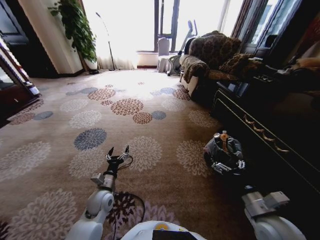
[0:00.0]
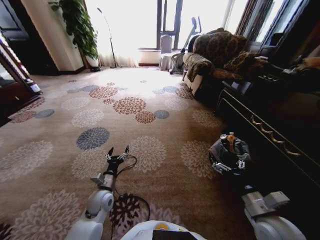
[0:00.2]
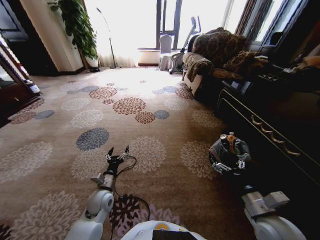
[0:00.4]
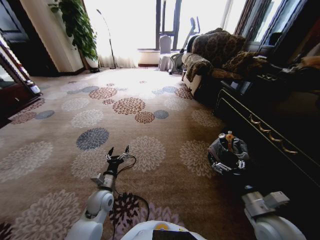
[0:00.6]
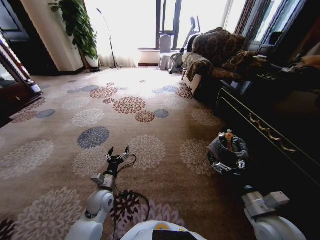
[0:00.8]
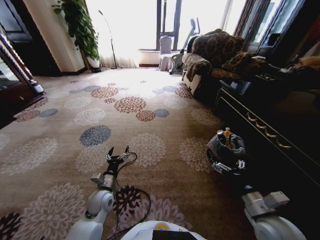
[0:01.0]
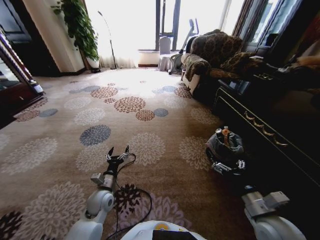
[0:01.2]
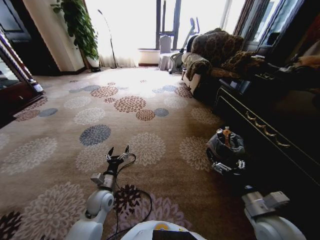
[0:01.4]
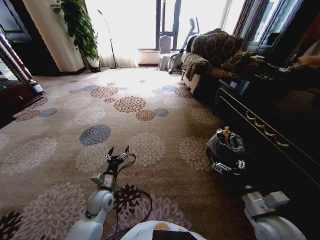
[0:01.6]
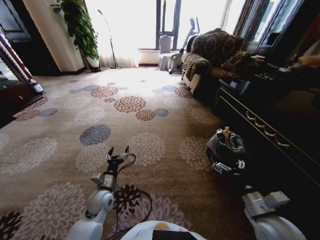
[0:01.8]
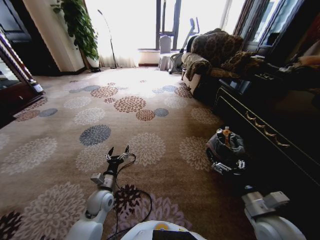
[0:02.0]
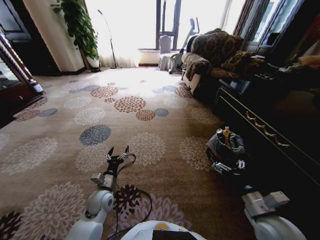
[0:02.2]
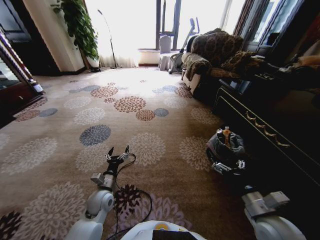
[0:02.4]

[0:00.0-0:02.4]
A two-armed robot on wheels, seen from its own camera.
Task of the whole recording: Pick up the trash from the ground and place it into the trash bin.
0:00.0 to 0:02.4: Both grippers stay put.

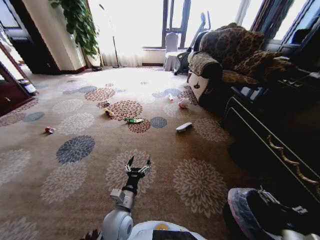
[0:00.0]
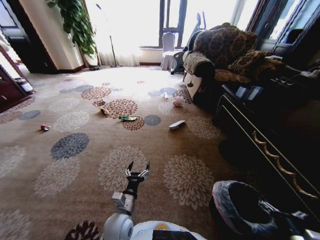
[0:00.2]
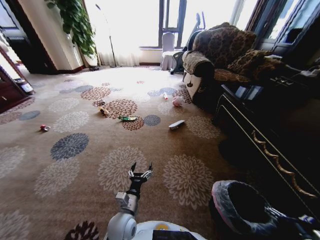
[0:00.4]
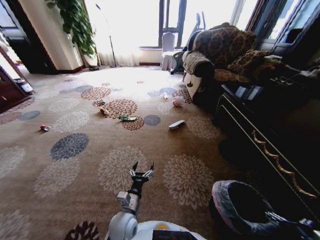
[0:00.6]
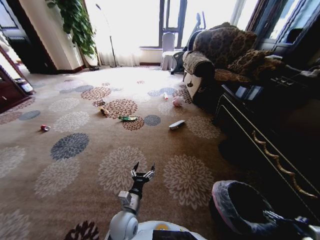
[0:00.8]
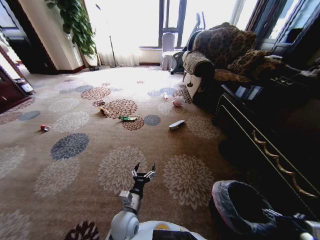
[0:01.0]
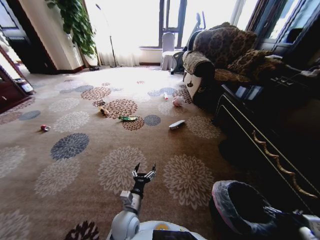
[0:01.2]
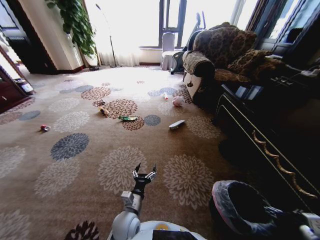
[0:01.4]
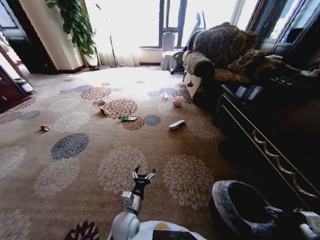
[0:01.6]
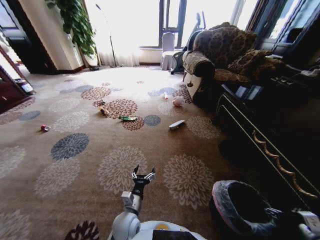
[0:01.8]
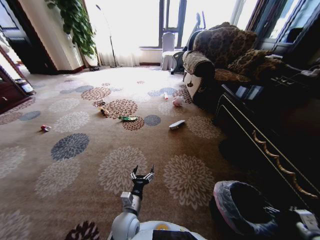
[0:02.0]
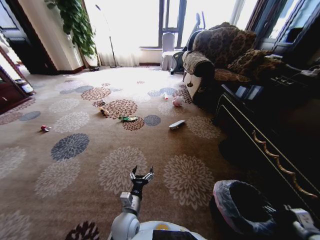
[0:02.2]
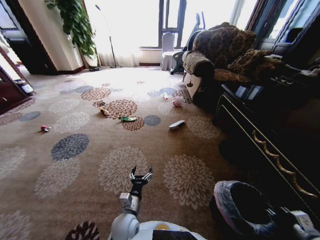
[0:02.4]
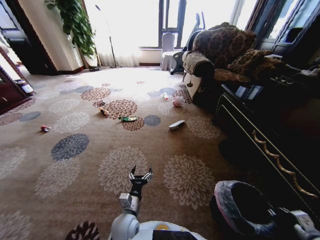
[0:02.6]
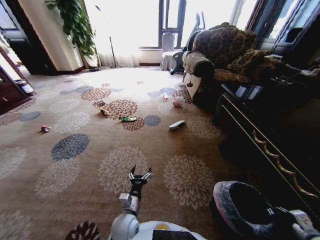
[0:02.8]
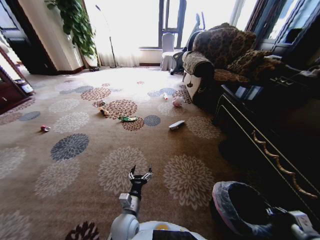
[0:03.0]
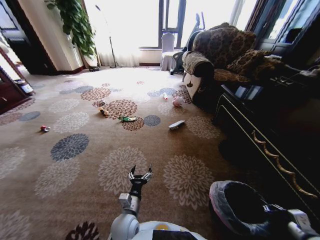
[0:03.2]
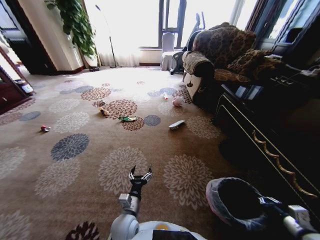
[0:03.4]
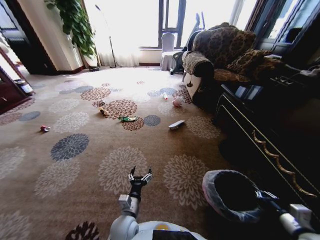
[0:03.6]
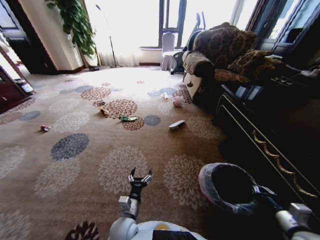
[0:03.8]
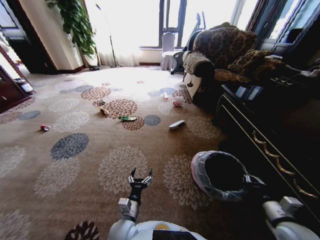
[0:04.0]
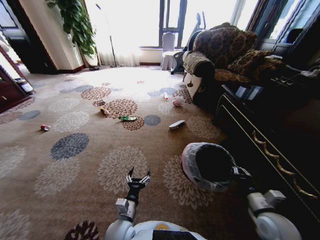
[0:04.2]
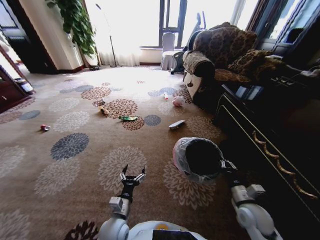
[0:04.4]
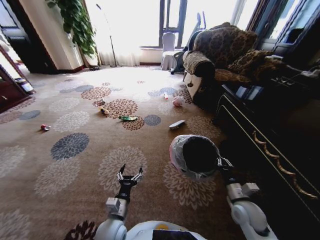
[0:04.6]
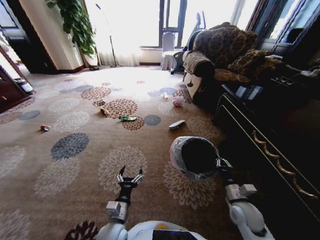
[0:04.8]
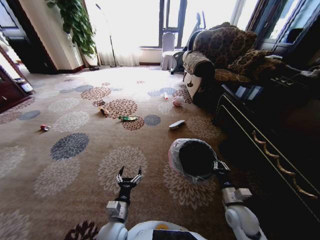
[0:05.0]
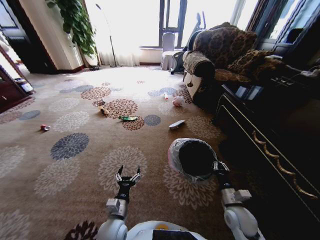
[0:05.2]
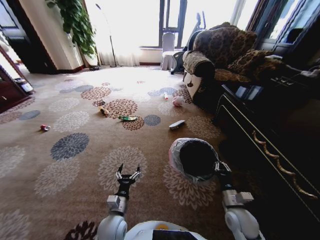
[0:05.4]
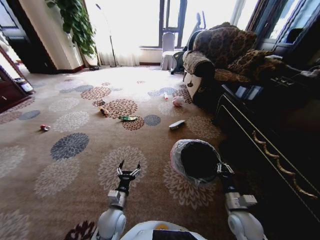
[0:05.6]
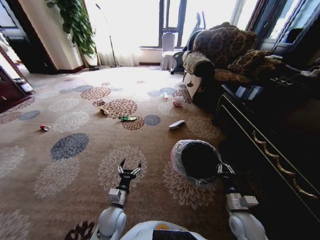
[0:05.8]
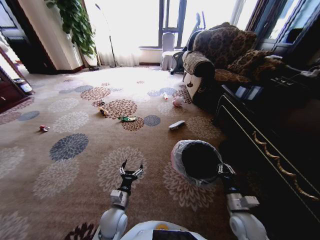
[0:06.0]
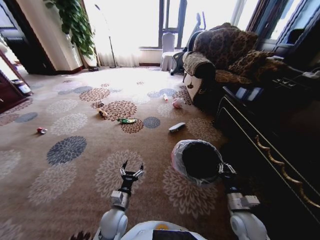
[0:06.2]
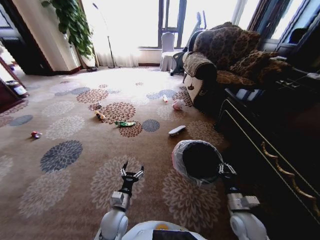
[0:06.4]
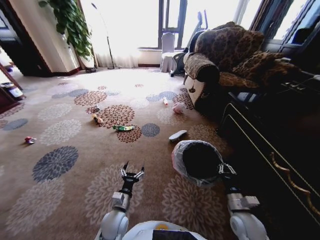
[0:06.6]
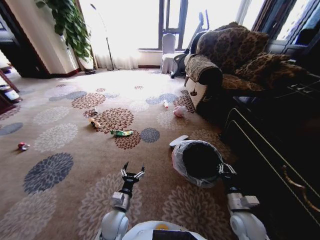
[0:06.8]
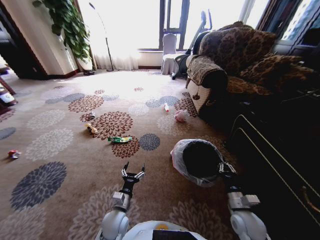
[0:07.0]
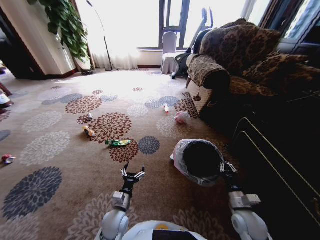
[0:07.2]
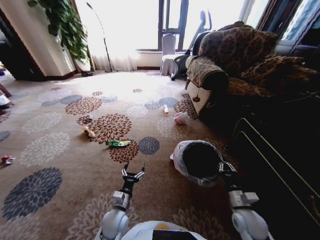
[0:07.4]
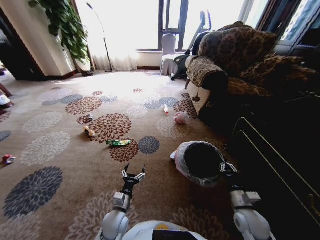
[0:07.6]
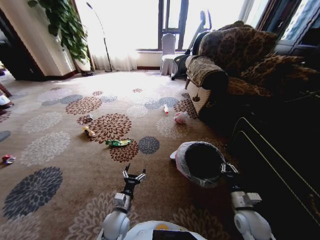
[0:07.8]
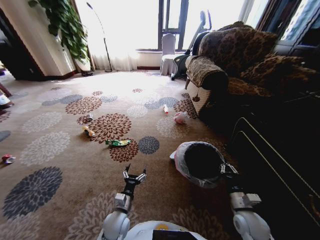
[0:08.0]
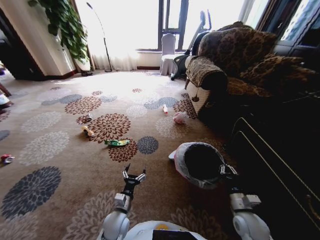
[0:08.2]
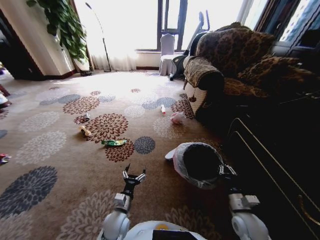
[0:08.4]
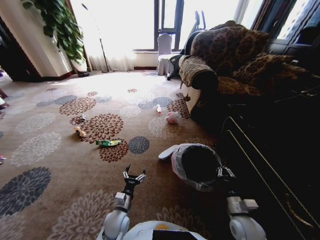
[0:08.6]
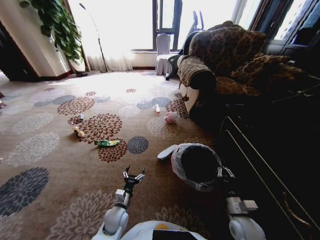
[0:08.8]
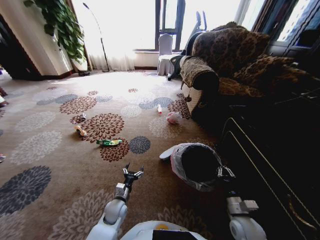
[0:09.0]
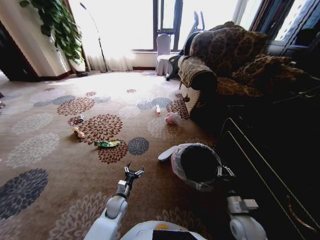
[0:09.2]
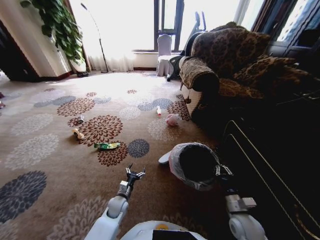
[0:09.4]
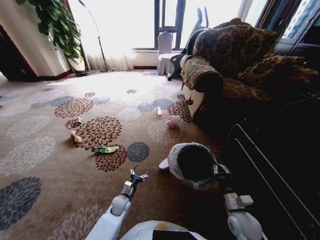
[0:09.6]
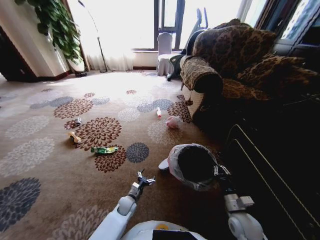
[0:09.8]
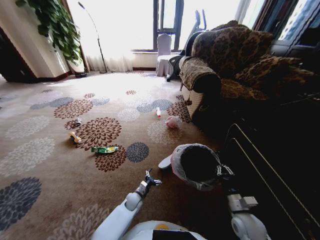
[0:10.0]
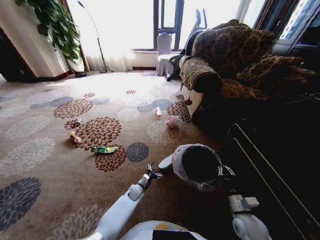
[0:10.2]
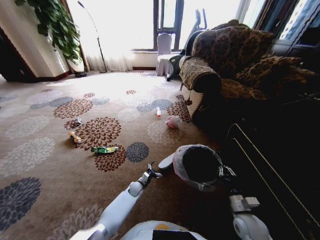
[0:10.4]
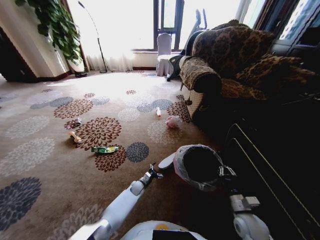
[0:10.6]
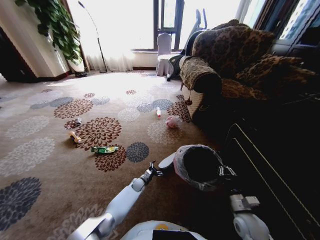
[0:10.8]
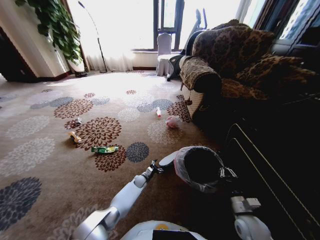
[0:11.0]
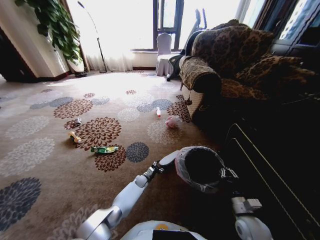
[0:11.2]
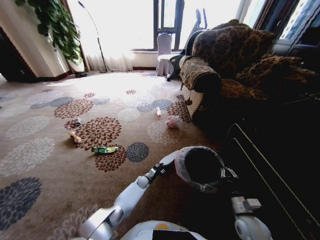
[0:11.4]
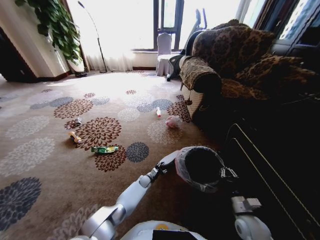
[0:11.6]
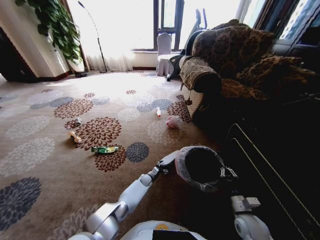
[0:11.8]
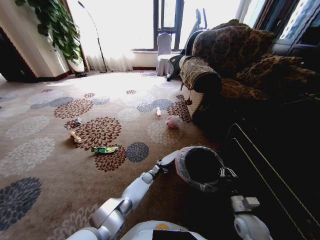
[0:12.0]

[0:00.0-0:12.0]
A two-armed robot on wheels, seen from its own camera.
Task of the whole recording: Pick up the trash from the ground and place it into the trash bin.
0:01.6 to 0:03.0: The right gripper closes up.
0:03.0 to 0:04.4: The right gripper travels to the left and forward by approximately 20 cm.
0:04.4 to 0:06.0: The grippers move only a little.
0:07.6 to 0:09.0: The left gripper is displaced forward by approximately 5 cm.
0:09.0 to 0:10.4: The left gripper is displaced forward, downward and to the right by about 15 cm.
0:10.4 to 0:12.0: The left gripper heads forward and to the right, covering some 10 cm, and closes and opens again.

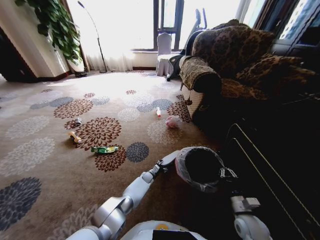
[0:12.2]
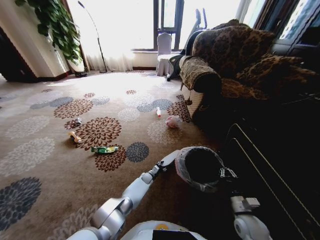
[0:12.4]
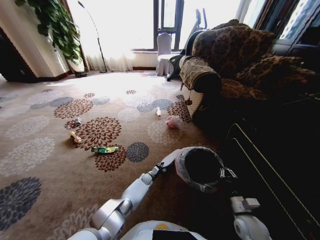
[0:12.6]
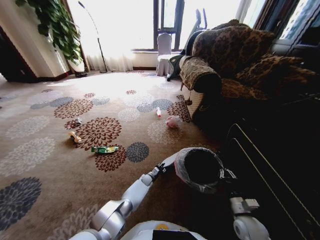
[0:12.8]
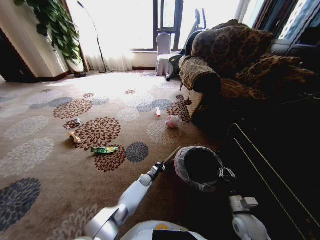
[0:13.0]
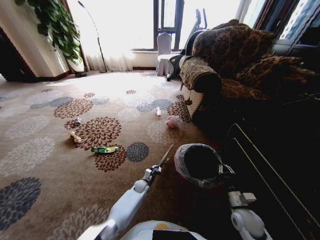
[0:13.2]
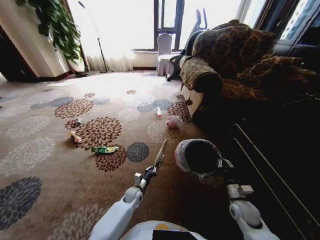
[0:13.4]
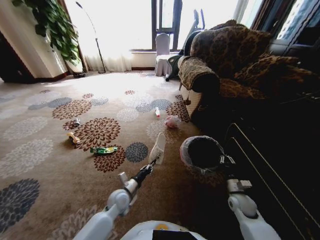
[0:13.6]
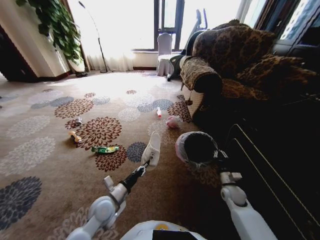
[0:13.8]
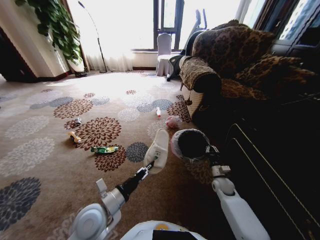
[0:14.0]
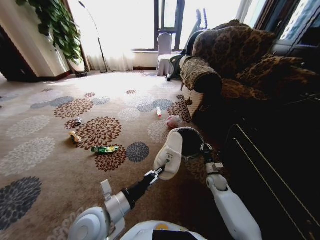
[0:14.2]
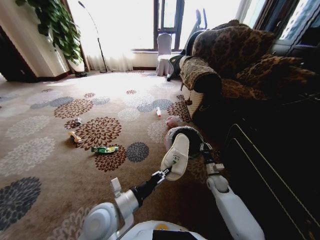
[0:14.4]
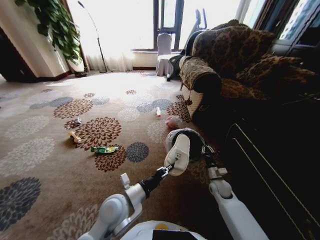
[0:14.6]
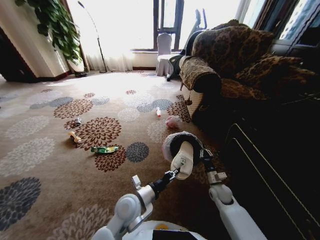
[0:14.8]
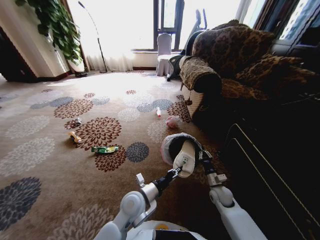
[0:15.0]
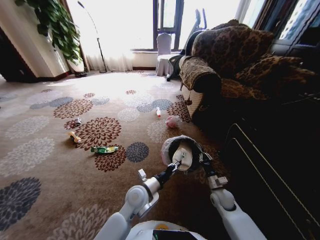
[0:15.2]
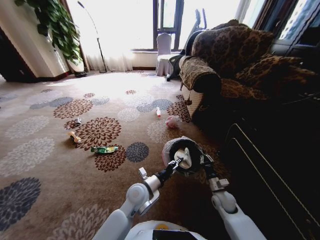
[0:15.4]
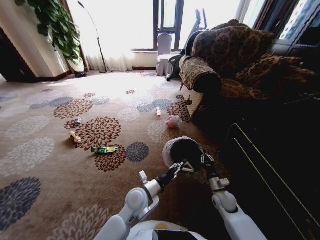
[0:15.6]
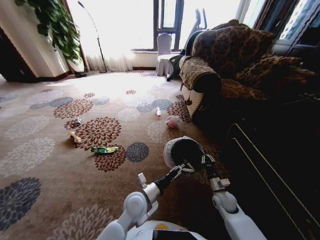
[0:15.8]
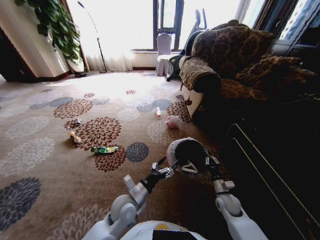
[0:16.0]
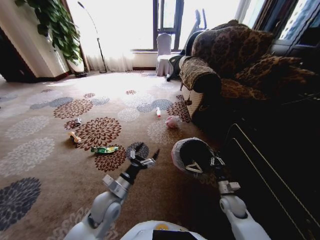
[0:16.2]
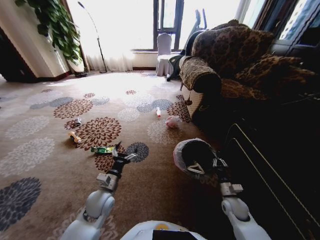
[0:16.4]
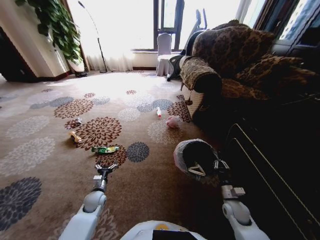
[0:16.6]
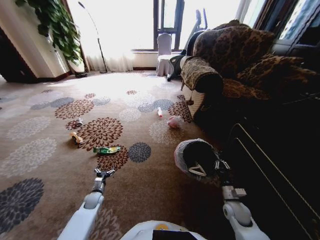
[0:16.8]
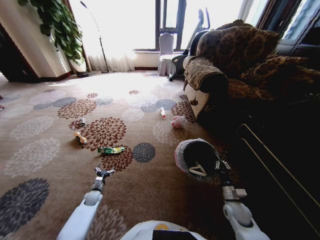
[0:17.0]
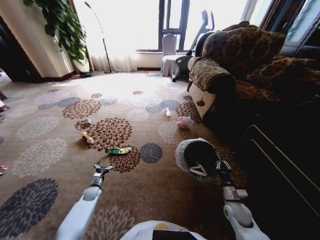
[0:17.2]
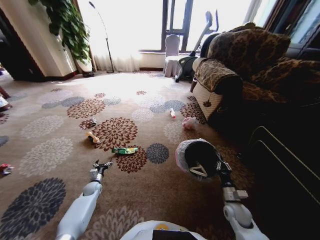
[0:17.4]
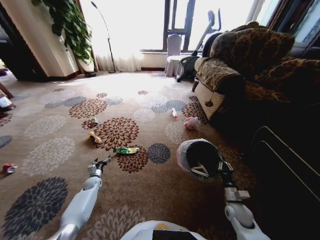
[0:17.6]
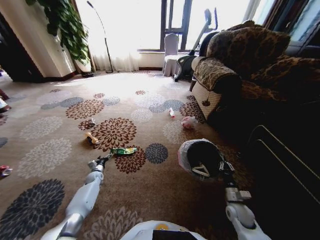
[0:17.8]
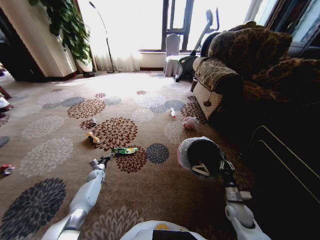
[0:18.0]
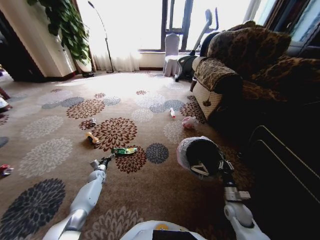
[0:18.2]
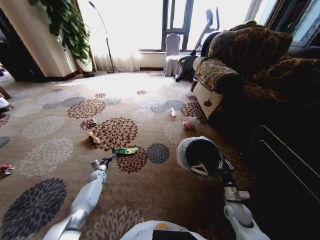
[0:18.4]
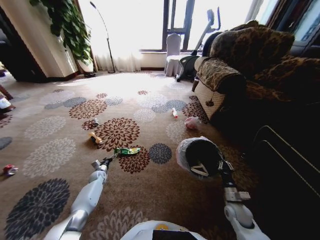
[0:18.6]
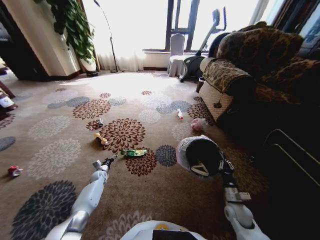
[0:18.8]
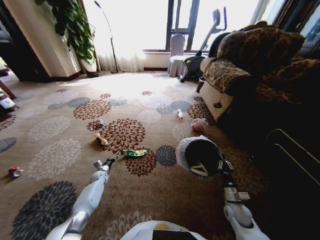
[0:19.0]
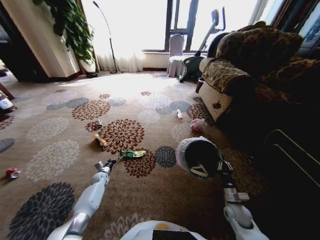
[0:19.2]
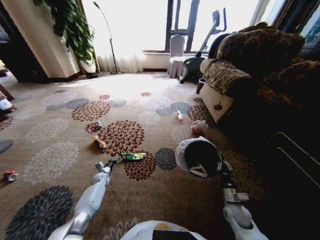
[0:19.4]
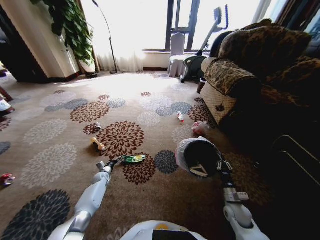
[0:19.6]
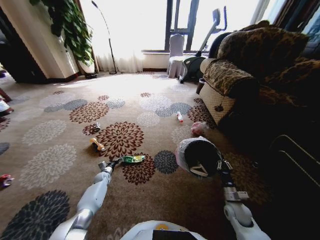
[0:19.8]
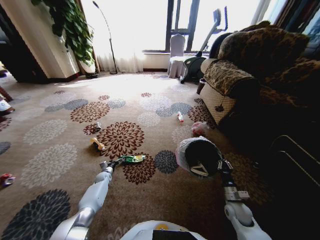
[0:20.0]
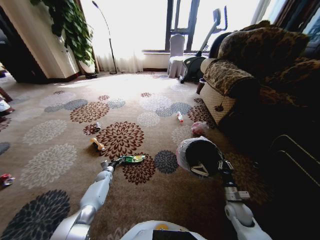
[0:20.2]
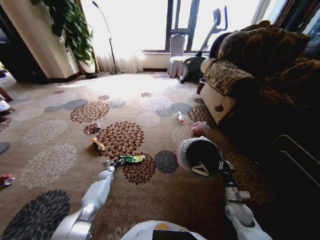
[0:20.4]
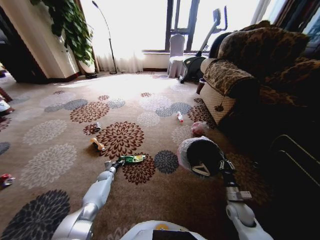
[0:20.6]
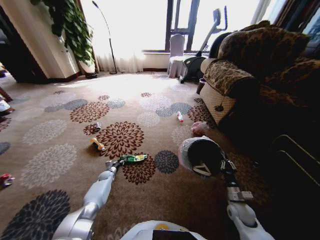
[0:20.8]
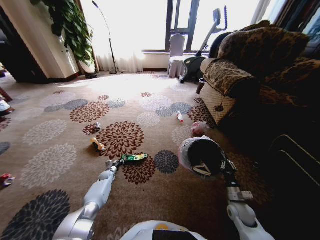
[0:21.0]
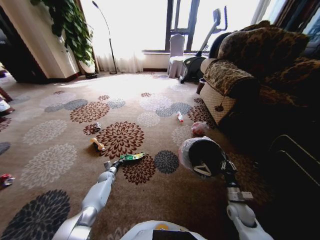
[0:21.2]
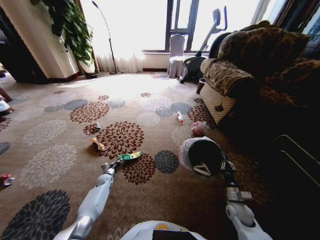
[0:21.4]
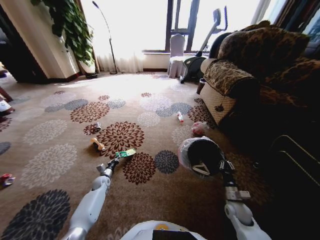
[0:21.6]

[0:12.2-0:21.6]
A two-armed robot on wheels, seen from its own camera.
Task of the whole recording: Pick up the trash from the ground and place it into the trash bin.
0:12.2 to 0:13.8: The right gripper goes approximately 10 cm forward. Meanwhile the left gripper goes roughly 35 cm upward, backward and to the left, and closes its fingers.
0:13.8 to 0:15.4: The left gripper moves to the right, about 15 cm; the right gripper moves to the left, approximately 5 cm, and goes forward and returns, some 5 cm each way.
0:15.4 to 0:17.0: The right gripper moves some 5 cm. Meanwhile the left gripper travels to the left and downward by about 35 cm, and opens its fingers.
0:17.0 to 0:18.4: The left gripper travels forward by approximately 10 cm.
0:20.0 to 0:21.6: The left gripper moves approximately 5 cm, and closes.
